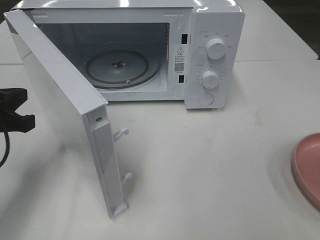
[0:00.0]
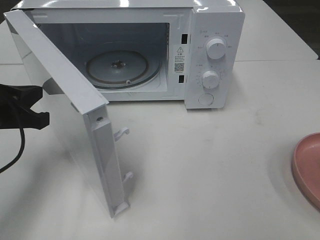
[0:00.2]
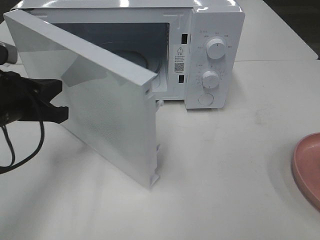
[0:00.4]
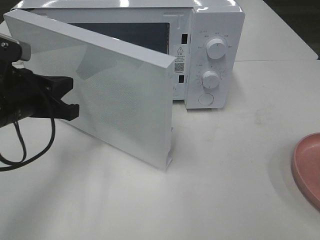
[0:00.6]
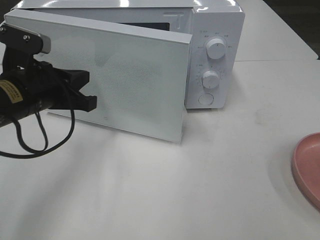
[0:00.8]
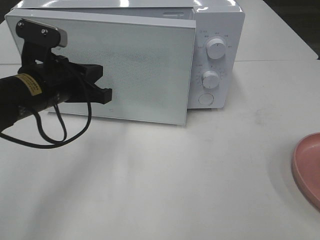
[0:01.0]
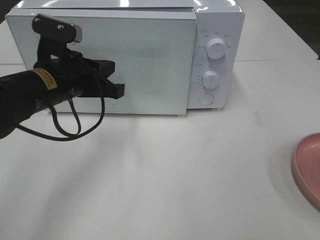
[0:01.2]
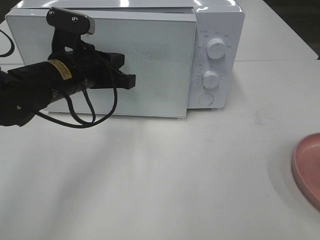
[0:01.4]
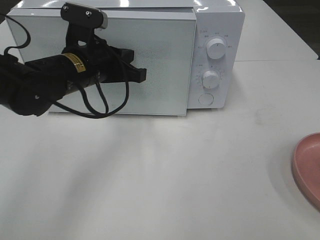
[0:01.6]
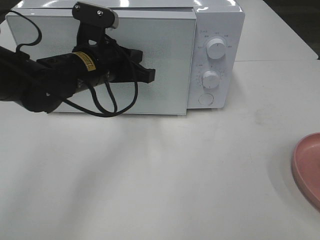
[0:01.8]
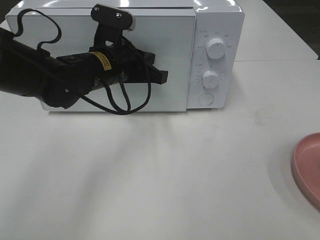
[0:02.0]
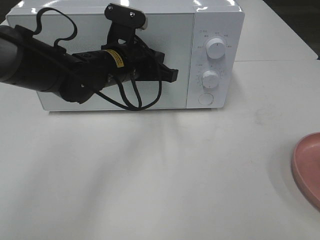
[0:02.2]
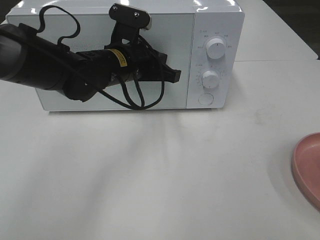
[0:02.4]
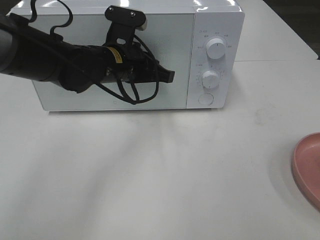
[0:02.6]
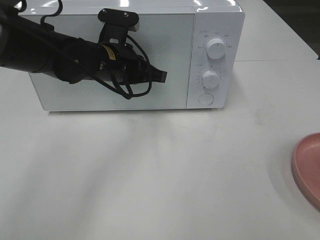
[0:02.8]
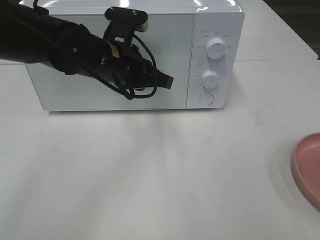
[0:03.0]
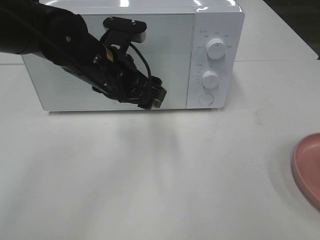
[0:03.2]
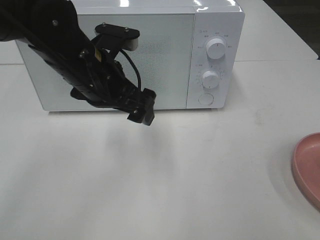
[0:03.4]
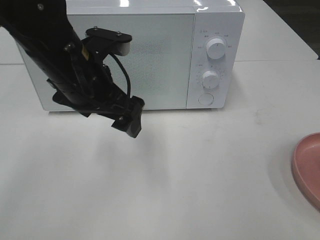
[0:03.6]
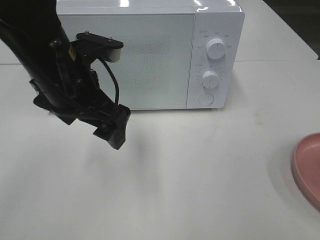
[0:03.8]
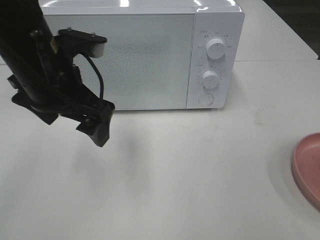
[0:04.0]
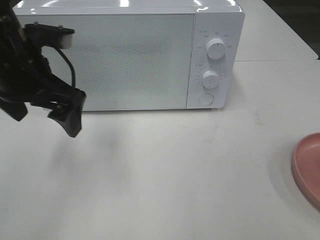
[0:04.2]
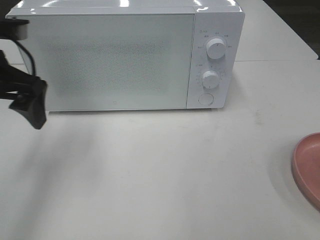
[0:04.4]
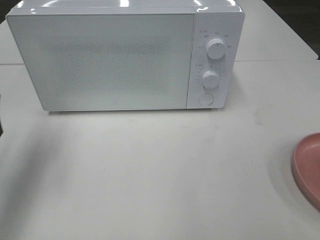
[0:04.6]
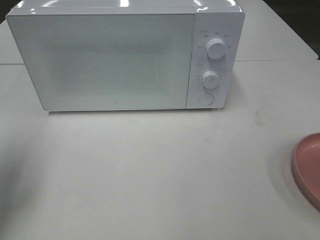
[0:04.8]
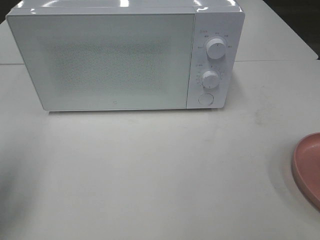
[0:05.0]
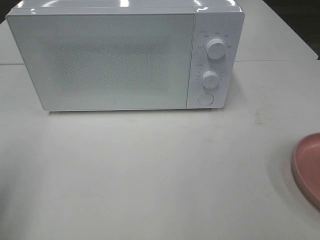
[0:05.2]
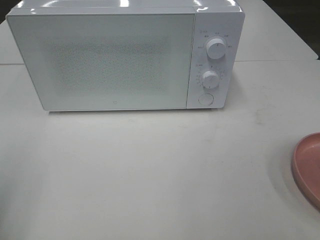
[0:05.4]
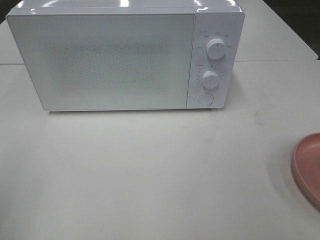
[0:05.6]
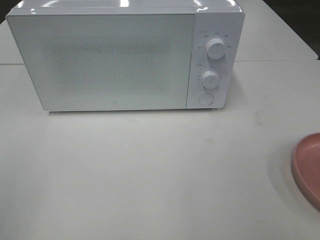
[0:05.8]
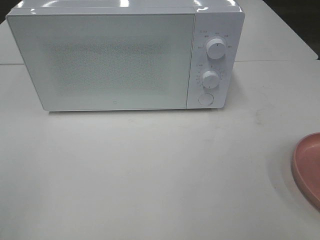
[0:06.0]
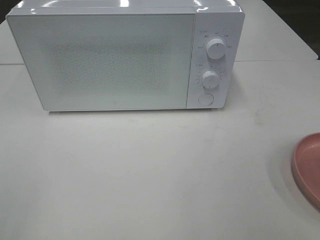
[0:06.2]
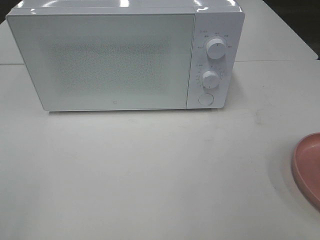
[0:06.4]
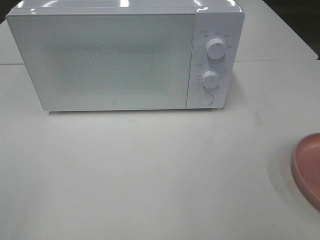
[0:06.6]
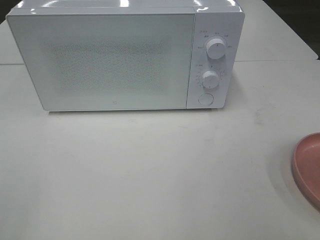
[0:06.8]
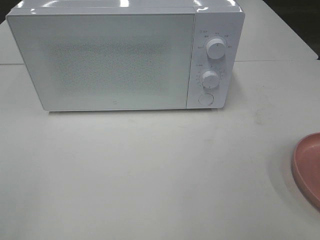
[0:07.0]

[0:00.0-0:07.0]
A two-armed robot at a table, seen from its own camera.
Task of the whole recording: Heat the burger.
Step, 0:00.0 to 0:02.8: Left hand: close the microwave door.
0:00.0 to 0:01.4: The left gripper shifts approximately 15 cm to the right and forward.
0:01.4 to 0:02.8: The left gripper shifts approximately 5 cm to the right.
0:02.8 to 0:04.2: The left gripper shifts roughly 15 cm to the left, backward and upward, and opens.
0:04.2 to 0:05.6: The left gripper is displaced backward and to the left by some 25 cm.

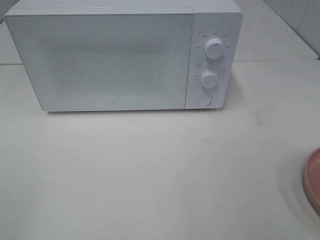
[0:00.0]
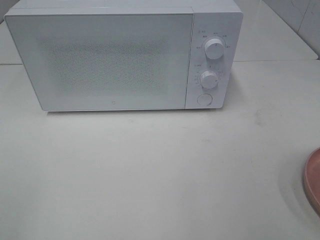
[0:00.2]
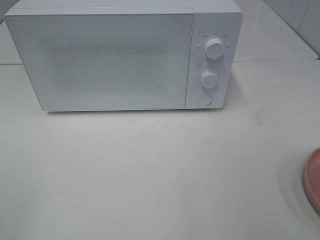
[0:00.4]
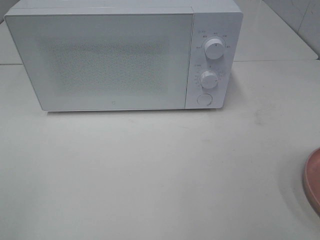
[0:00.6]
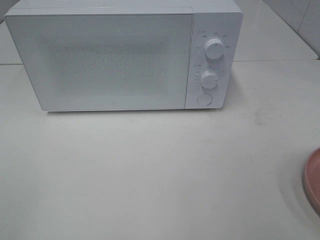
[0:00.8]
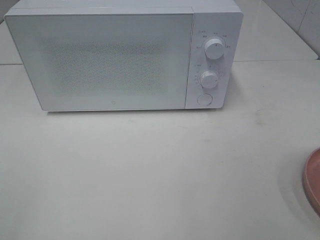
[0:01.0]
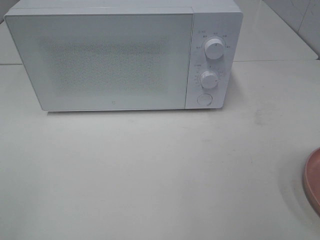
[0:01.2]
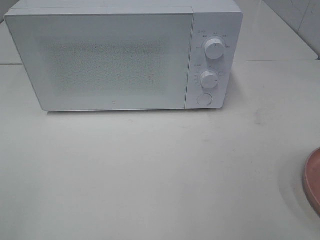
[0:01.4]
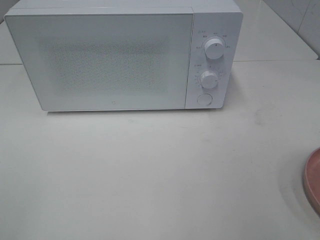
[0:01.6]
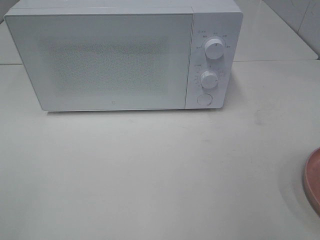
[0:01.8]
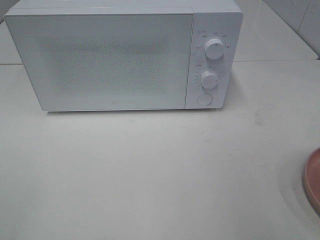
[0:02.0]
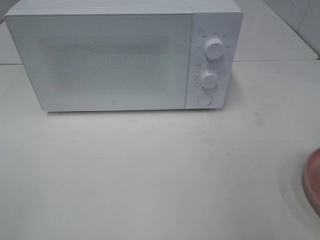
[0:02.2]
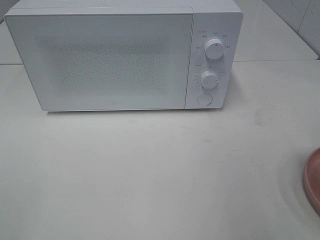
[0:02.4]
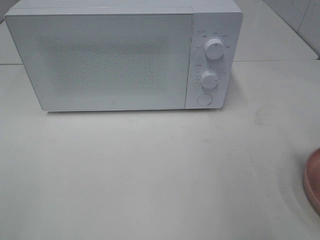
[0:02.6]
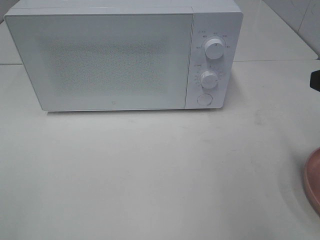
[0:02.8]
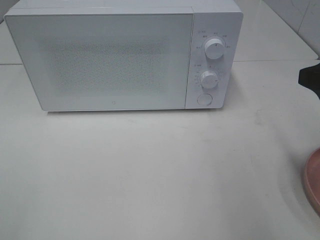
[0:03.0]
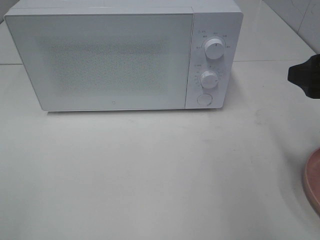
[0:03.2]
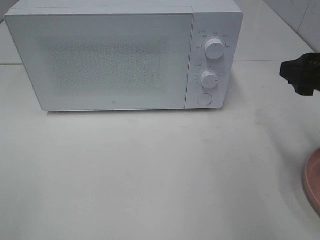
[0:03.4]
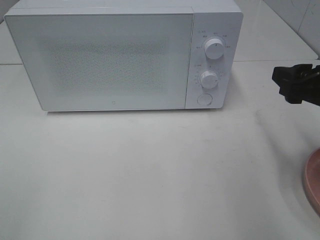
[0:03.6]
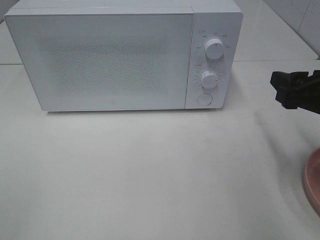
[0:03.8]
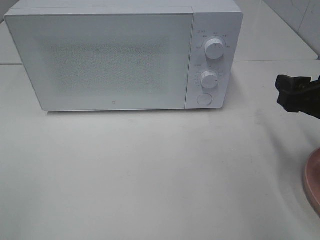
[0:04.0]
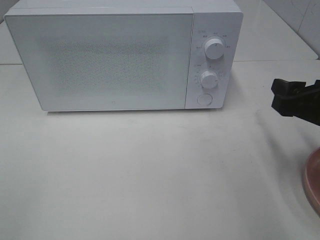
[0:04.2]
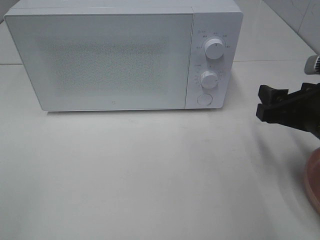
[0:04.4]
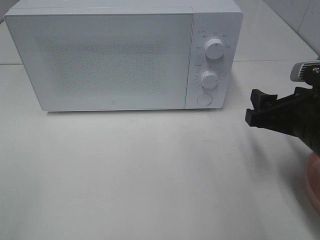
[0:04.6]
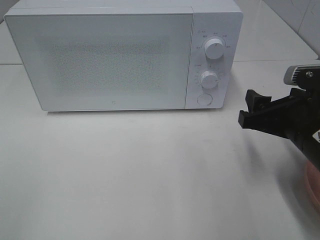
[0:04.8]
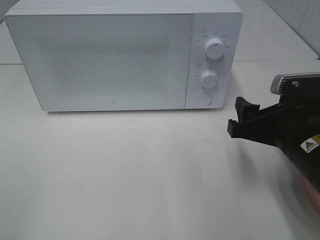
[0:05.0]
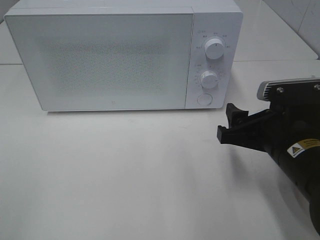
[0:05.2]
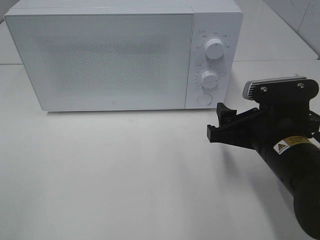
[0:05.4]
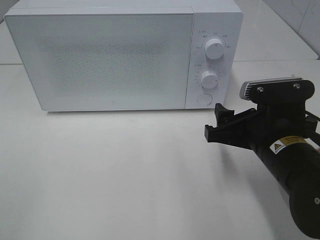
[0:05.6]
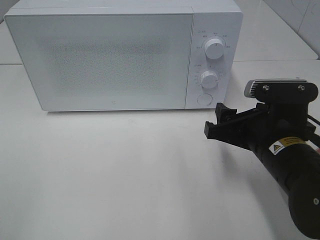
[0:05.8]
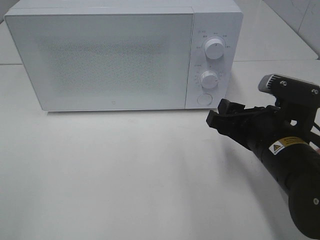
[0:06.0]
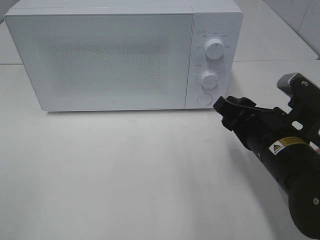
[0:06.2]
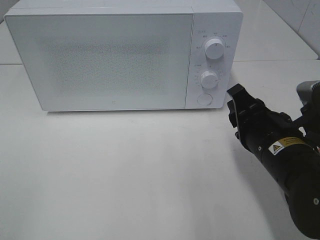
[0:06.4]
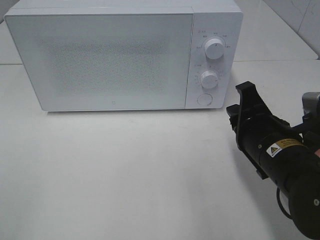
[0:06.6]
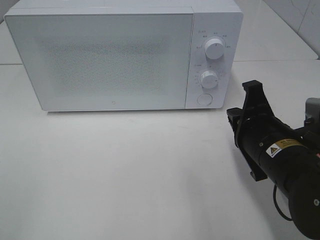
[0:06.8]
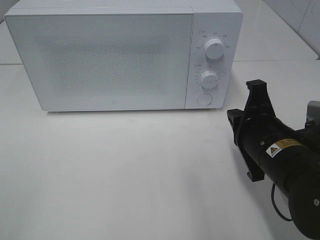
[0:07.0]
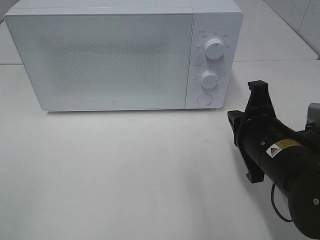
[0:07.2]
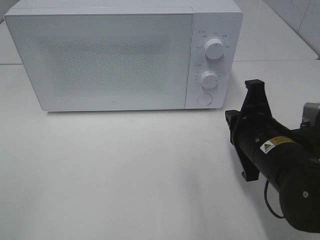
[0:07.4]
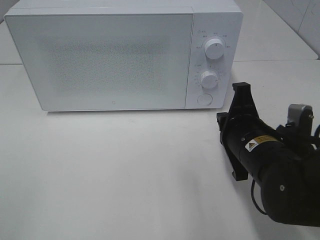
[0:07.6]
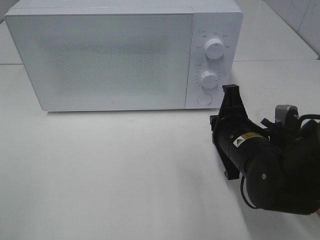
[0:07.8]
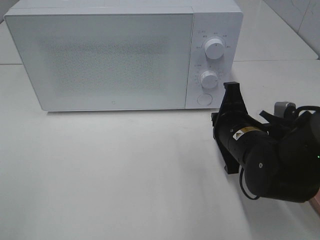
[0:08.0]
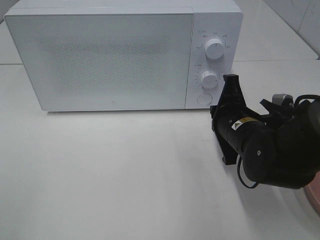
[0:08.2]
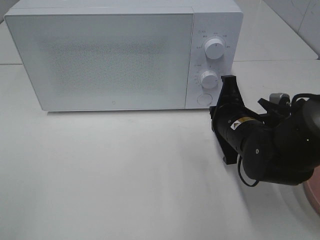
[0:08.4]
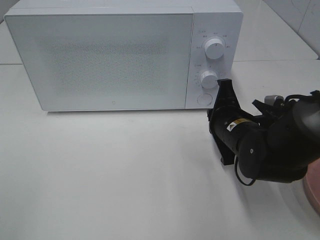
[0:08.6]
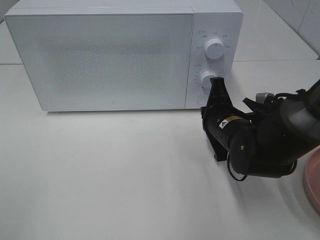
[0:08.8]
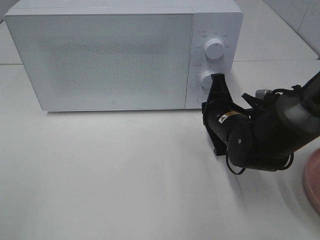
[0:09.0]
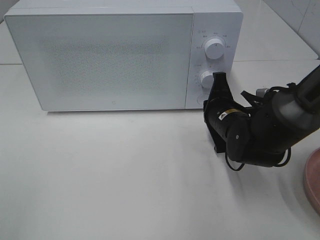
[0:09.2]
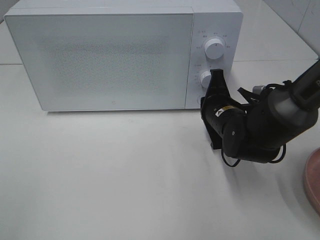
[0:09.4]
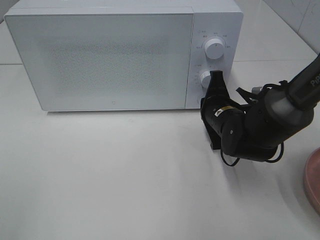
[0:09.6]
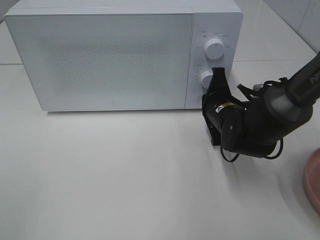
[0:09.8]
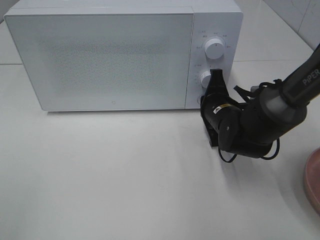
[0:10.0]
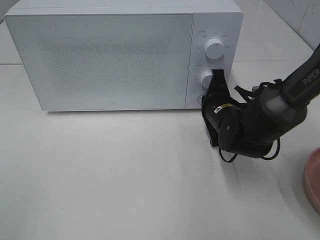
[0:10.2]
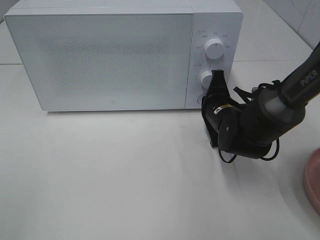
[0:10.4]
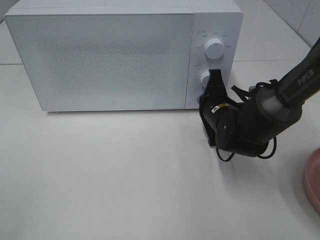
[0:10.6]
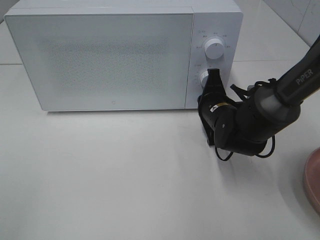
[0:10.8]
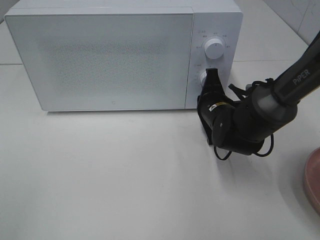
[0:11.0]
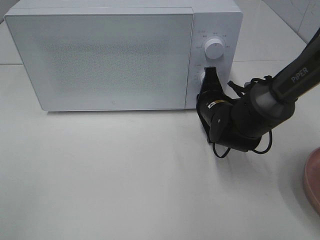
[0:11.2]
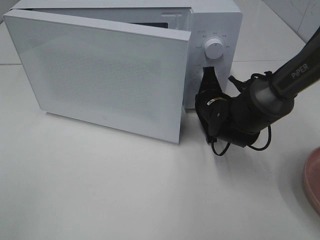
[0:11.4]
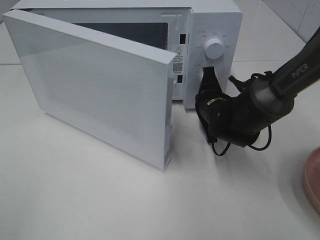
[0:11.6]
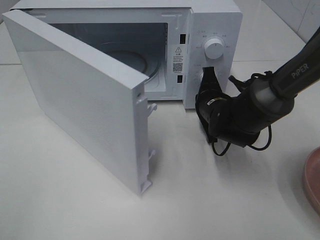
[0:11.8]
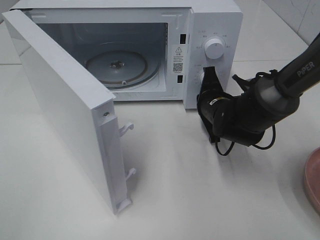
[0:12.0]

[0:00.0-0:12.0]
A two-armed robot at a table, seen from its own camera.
Task of the whole recording: Heat the burger.
0:01.6 to 0:03.0: The right gripper goes about 15 cm forward.
0:03.0 to 0:04.4: The right gripper is displaced downward by roughly 10 cm.
0:04.4 to 0:06.0: The right gripper travels to the left by approximately 5 cm.
0:06.0 to 0:07.6: The right gripper closes.
0:07.6 to 0:09.0: The right gripper goes about 10 cm forward.
0:09.0 to 0:10.4: The grippers make only small movements.

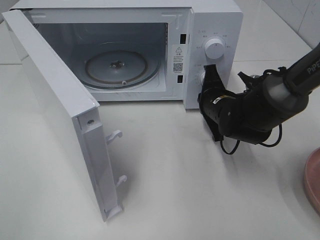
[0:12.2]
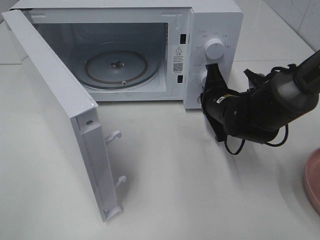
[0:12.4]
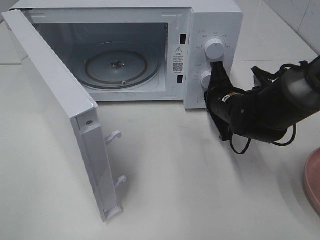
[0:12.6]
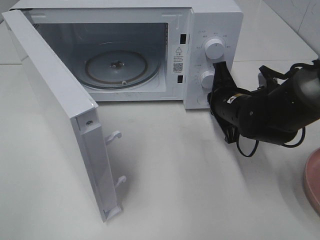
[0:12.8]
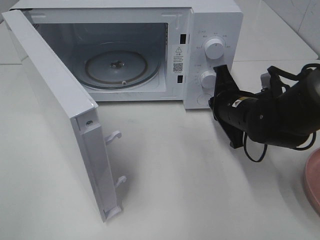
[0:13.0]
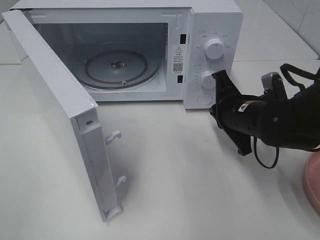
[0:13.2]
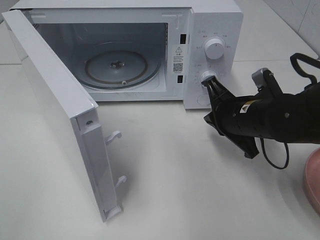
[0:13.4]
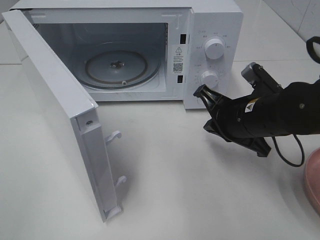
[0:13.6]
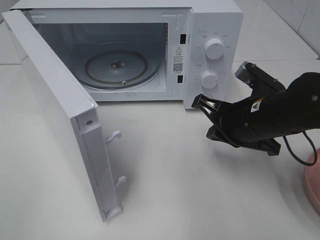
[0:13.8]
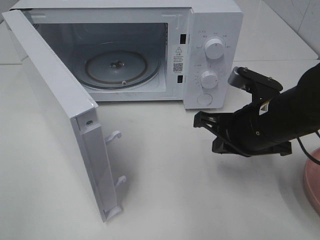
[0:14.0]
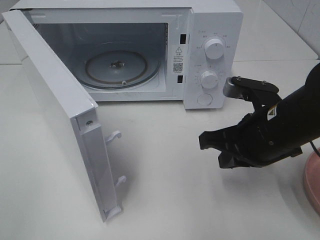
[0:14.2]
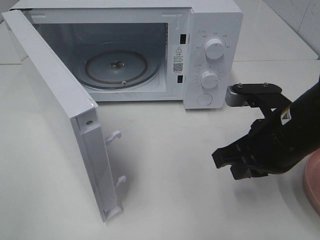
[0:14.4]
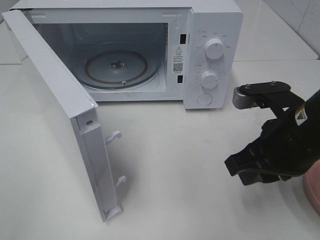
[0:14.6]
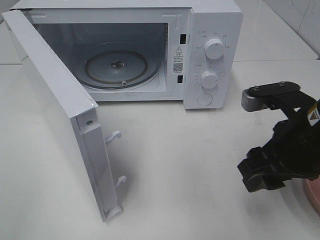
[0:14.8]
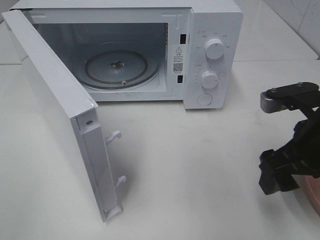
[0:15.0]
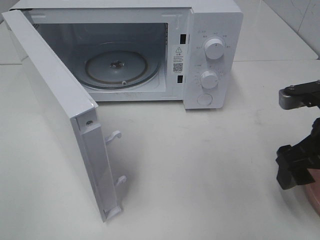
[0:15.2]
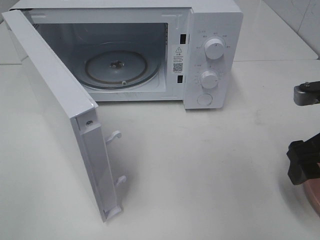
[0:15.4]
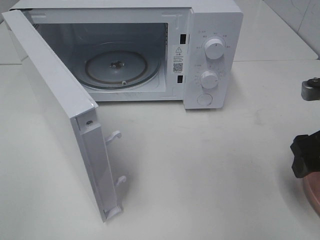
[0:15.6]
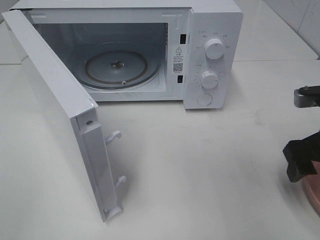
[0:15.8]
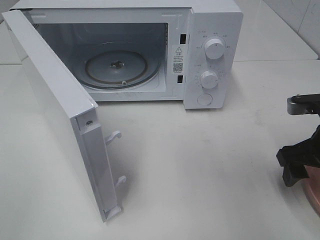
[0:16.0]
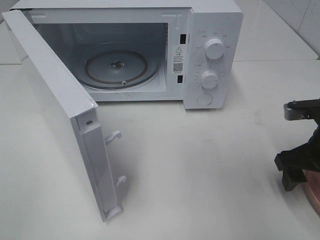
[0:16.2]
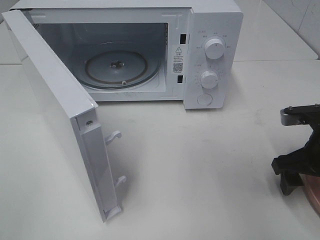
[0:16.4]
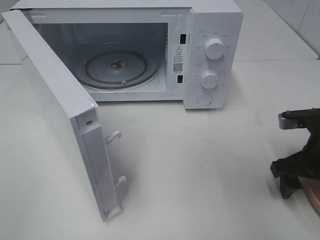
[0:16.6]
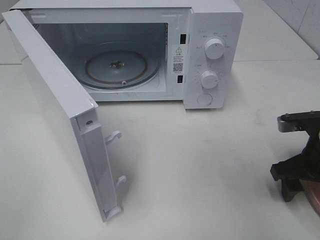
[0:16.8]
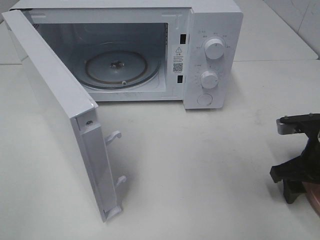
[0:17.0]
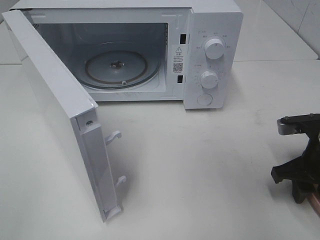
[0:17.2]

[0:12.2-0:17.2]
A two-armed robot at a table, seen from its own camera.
Task of the whole recording: Heat the burger.
0:12.2 to 0:13.8: The right gripper travels backward and upward by approximately 10 cm.
0:13.8 to 0:15.6: The right gripper is displaced to the right by some 10 cm, and opens.
0:15.6 to 0:17.2: The right gripper moves downward, roughly 10 cm, and closes up.
